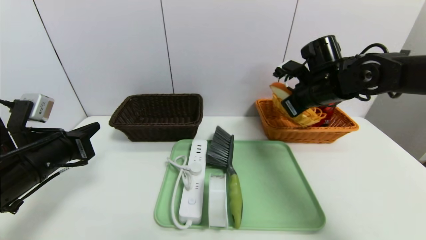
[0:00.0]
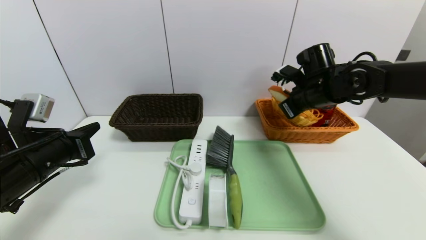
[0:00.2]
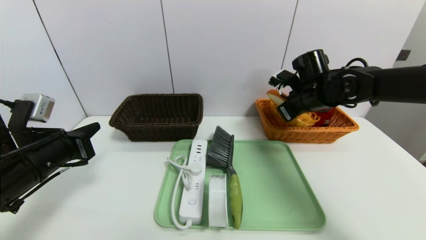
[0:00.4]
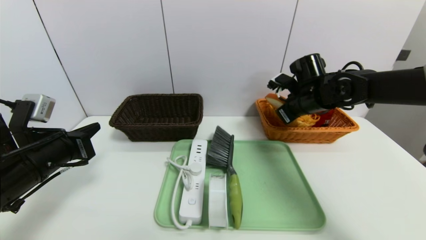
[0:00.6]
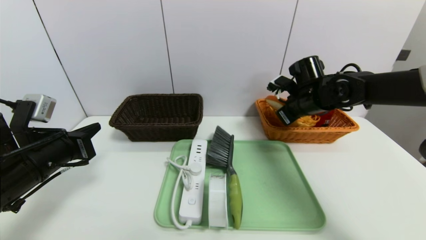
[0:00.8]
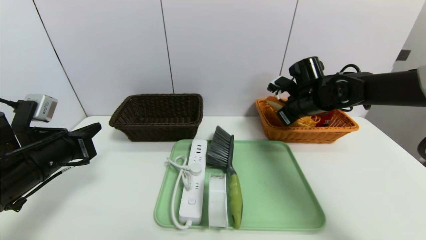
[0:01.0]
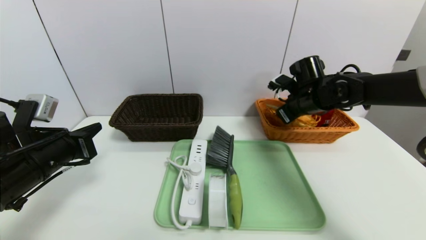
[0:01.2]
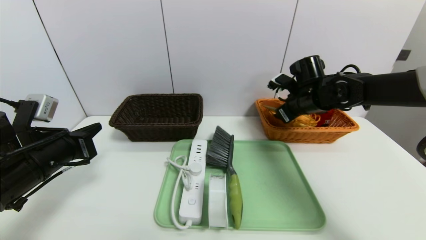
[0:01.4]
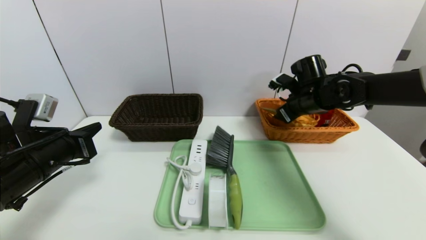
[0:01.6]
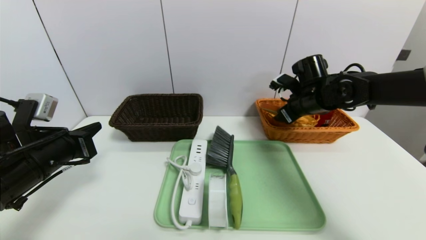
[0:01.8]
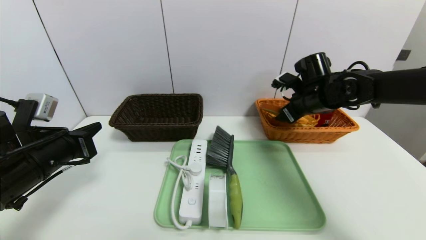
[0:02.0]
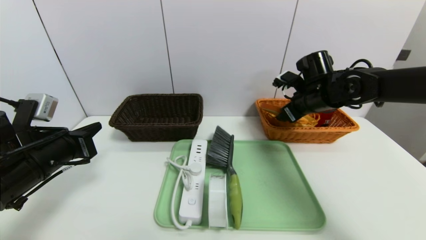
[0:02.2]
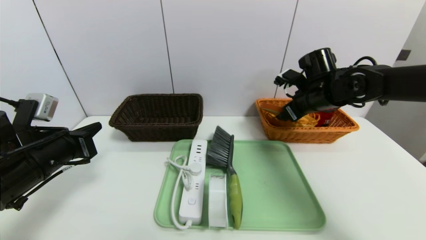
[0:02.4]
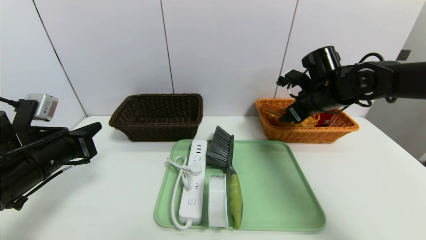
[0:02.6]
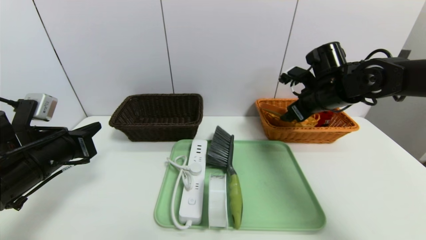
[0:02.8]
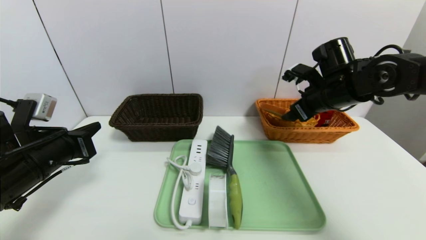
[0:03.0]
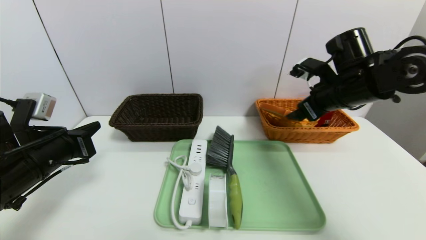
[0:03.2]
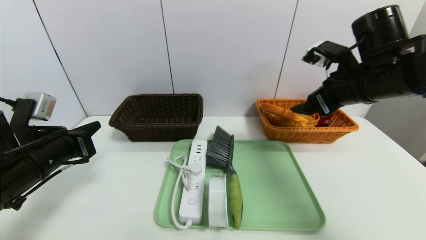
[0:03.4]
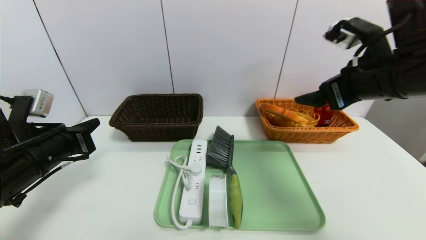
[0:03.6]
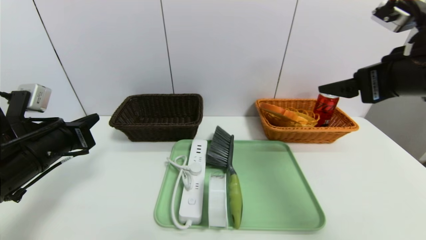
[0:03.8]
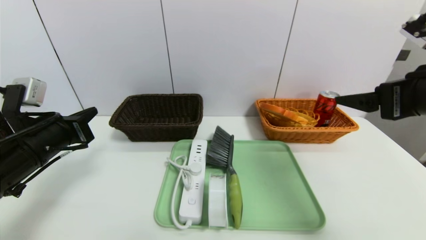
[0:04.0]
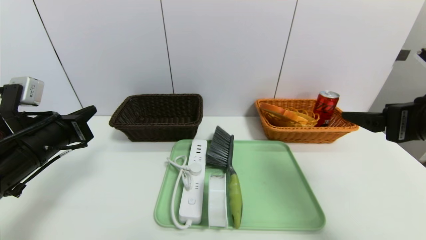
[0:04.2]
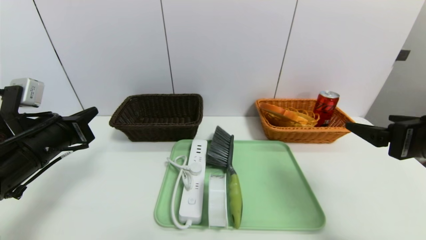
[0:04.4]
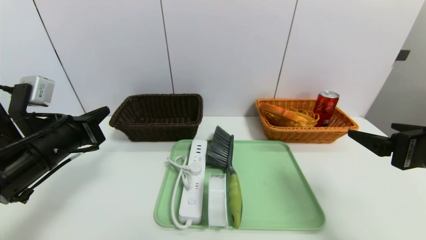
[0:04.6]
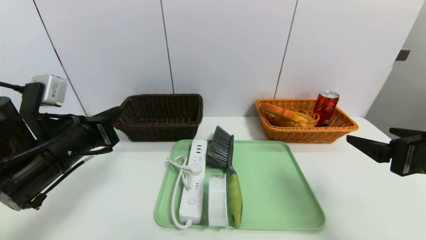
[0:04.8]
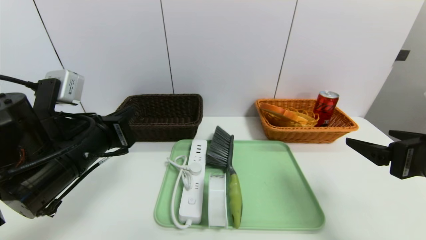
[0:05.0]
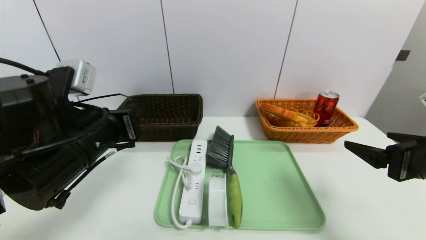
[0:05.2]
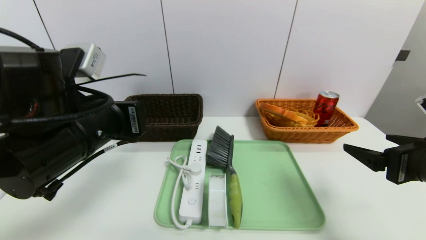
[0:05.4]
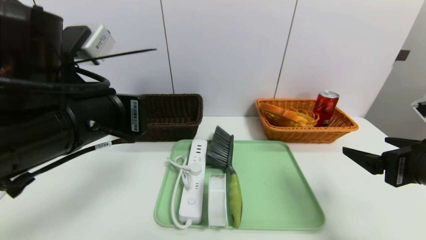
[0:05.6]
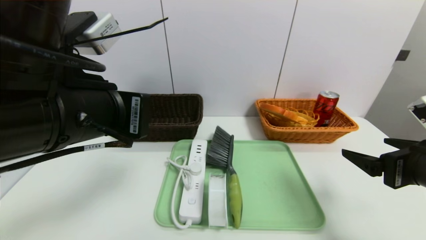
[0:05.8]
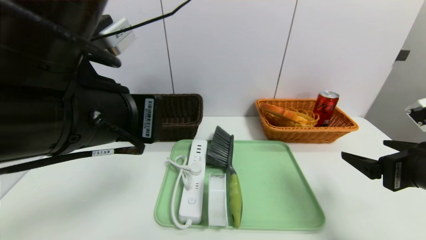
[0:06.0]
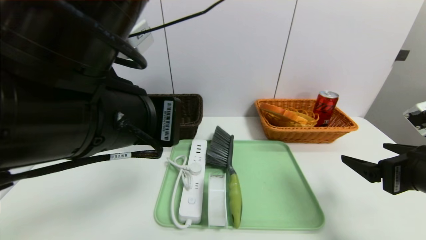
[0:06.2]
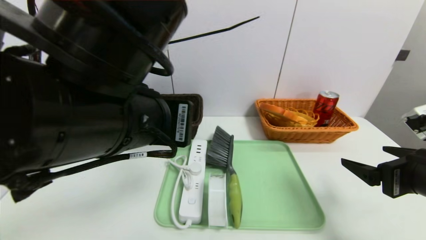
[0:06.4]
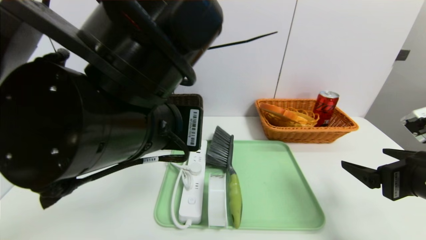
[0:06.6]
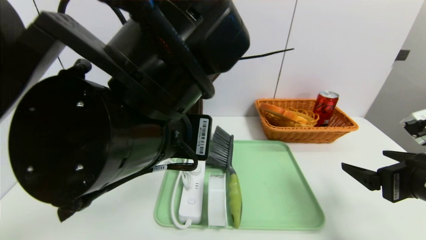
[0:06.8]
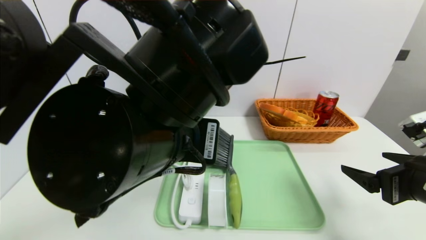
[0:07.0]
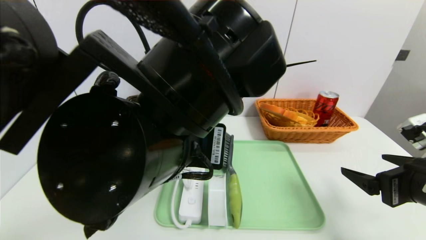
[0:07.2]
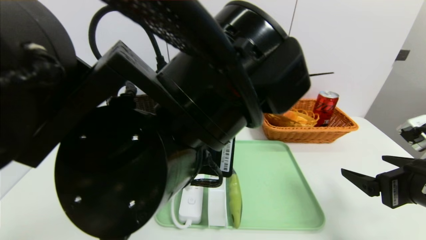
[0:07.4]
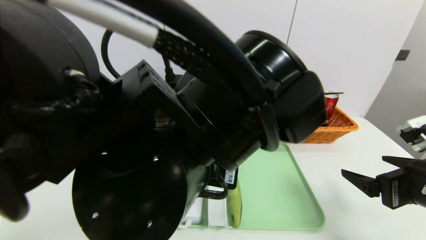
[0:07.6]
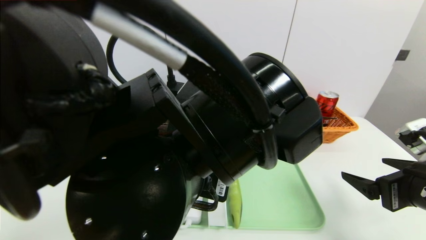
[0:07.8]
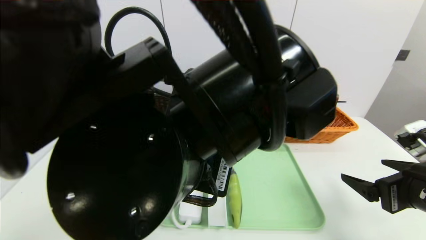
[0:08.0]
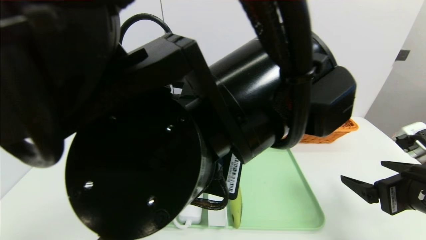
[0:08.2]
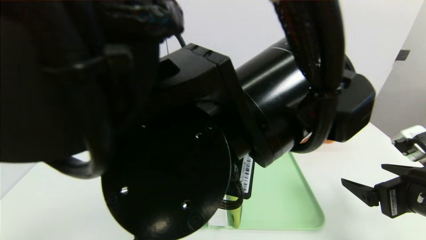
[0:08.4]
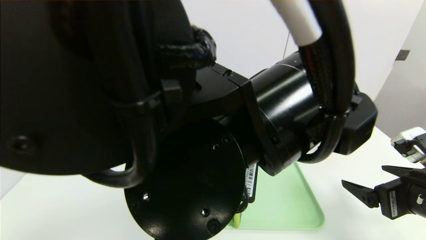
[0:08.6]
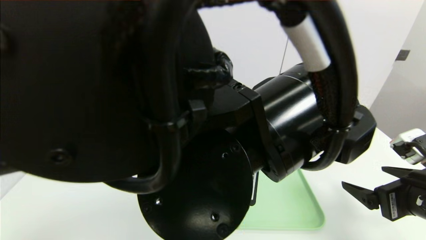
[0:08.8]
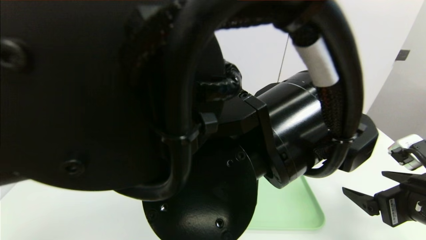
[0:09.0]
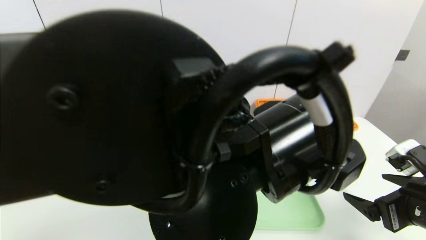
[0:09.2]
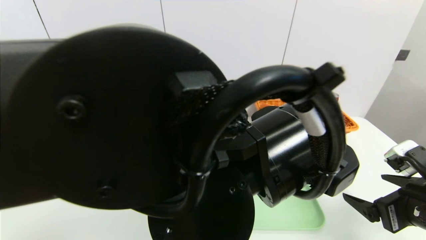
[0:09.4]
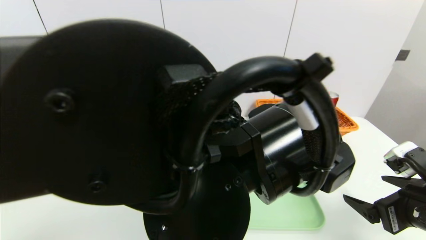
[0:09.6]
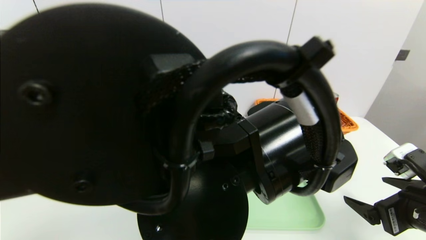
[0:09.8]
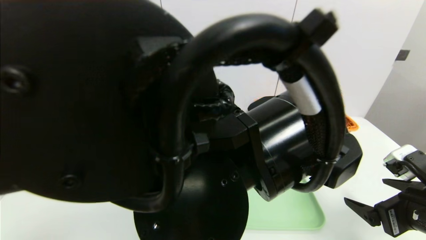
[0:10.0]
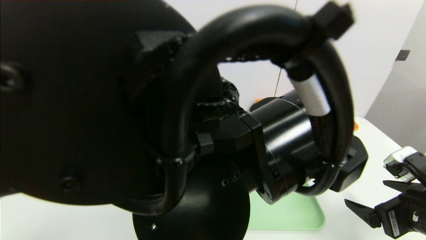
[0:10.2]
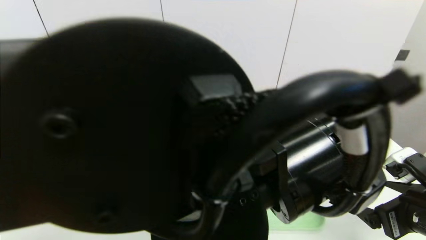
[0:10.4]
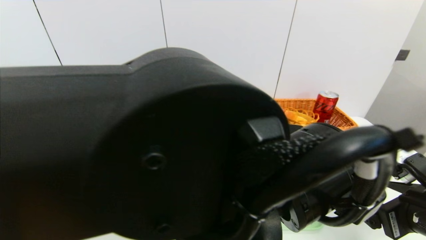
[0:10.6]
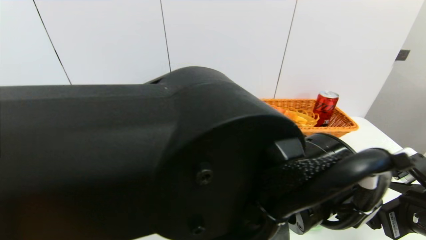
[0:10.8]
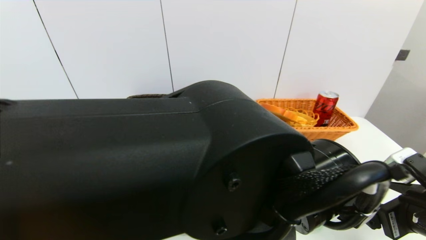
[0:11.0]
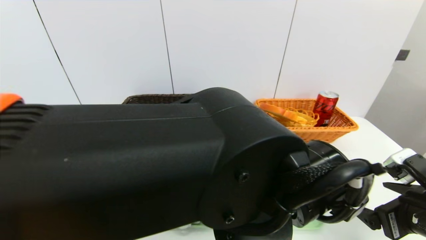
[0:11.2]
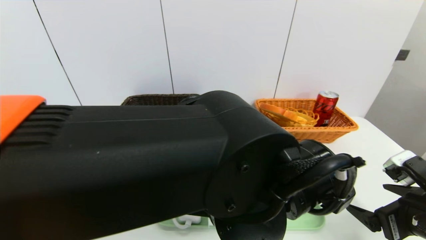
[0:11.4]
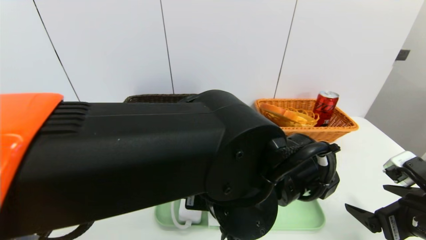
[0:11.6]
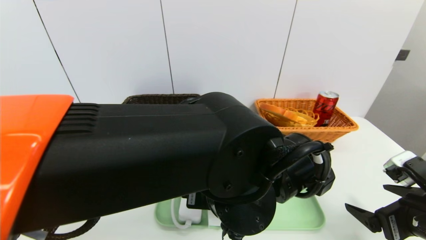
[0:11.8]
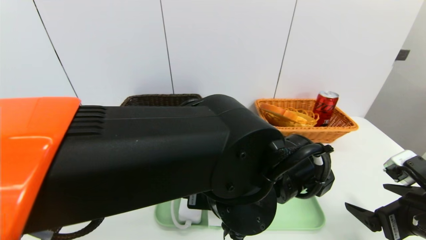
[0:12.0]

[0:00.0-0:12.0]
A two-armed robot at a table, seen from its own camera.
Task of the whole recording: place the food in the right basket with the right gripper, and place the non food items in the left basket with the left gripper.
Step, 0:00.0 to 0:03.6: Grasp the bread slice and put it in the right basket.
0:00.0 to 0:01.6: The right gripper shifts by approximately 5 cm, and opens its fingers.
0:01.6 to 0:03.0: The right gripper goes roughly 5 cm backward.
0:03.0 to 0:04.4: The right gripper shifts roughly 20 cm backward.
0:04.4 to 0:06.0: The left gripper moves to the right, upward and backward, some 20 cm.
0:06.0 to 0:07.6: The left gripper travels to the right by approximately 10 cm.
0:09.0 to 0:10.4: The left gripper opens up.
0:10.4 to 0:12.0: The left gripper travels downward by approximately 5 cm.

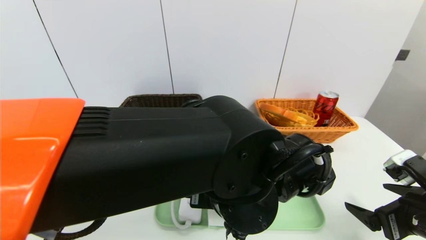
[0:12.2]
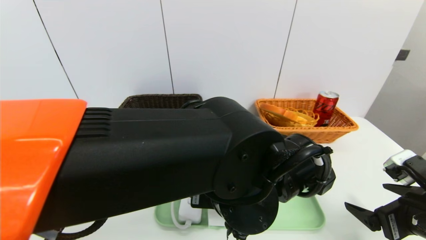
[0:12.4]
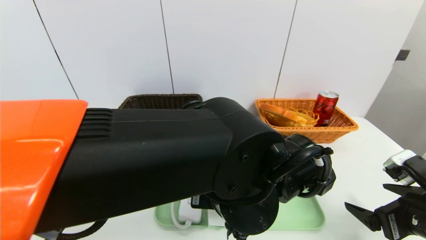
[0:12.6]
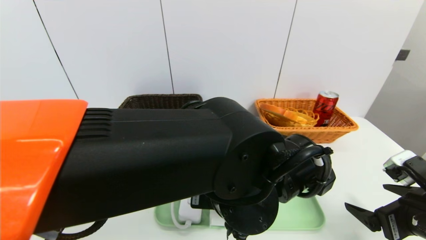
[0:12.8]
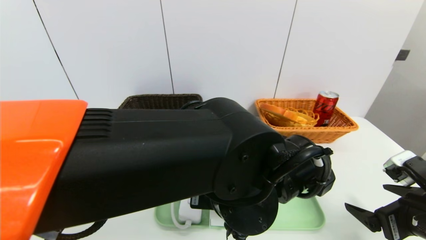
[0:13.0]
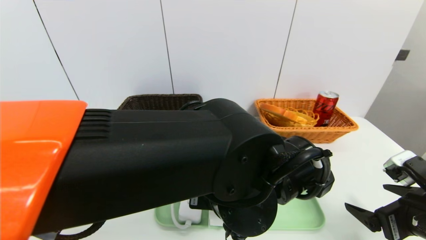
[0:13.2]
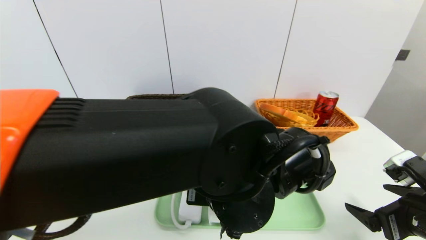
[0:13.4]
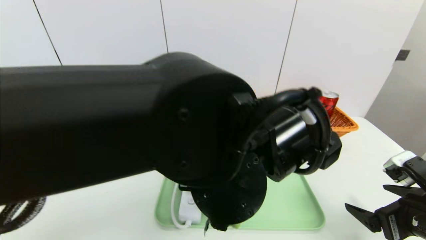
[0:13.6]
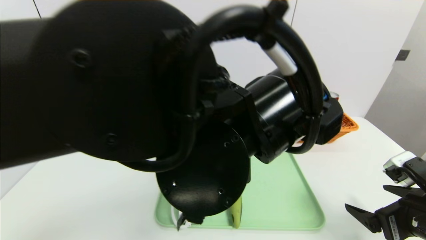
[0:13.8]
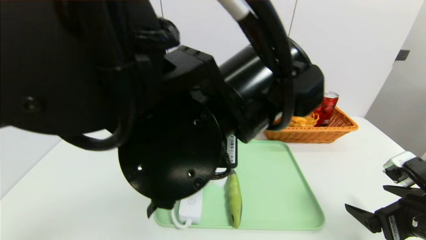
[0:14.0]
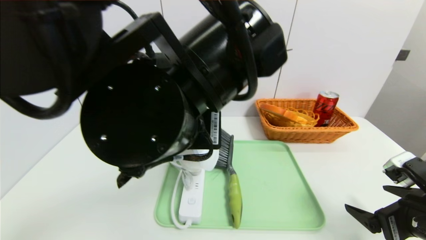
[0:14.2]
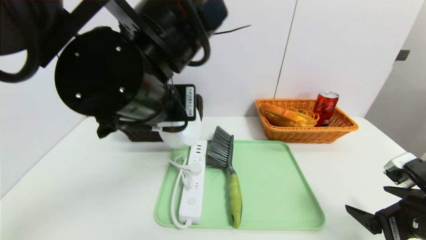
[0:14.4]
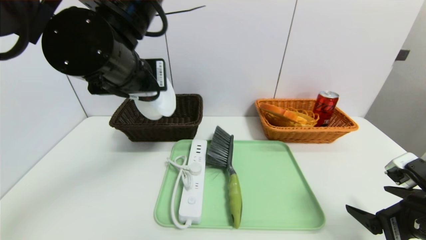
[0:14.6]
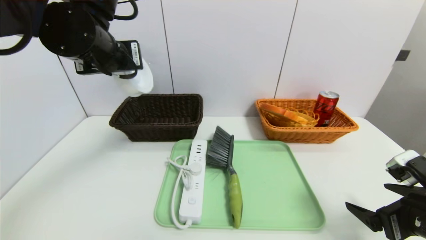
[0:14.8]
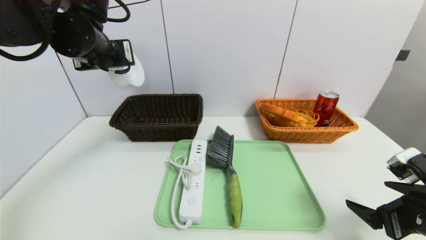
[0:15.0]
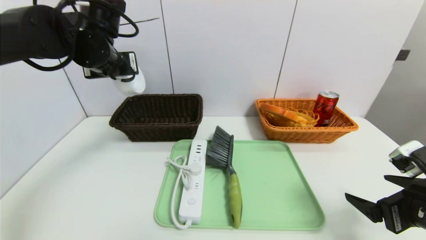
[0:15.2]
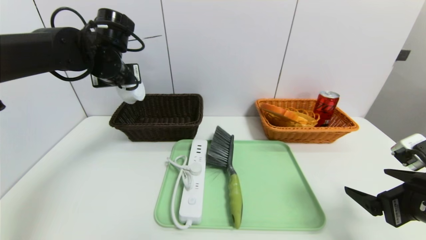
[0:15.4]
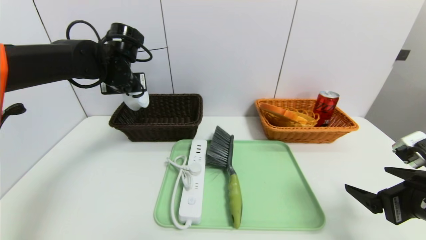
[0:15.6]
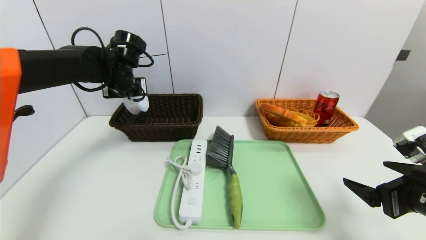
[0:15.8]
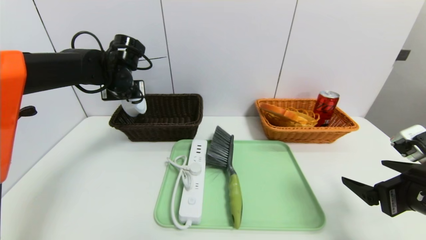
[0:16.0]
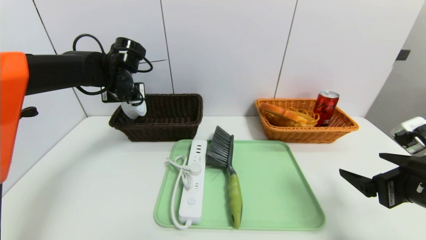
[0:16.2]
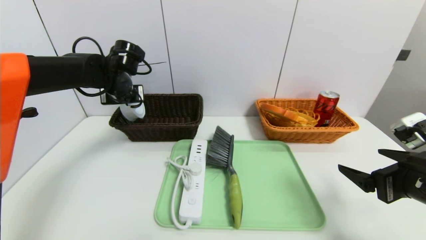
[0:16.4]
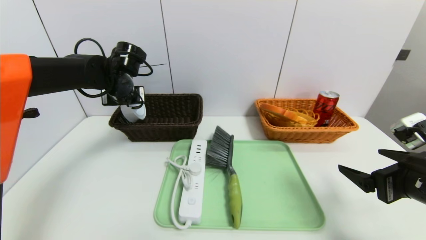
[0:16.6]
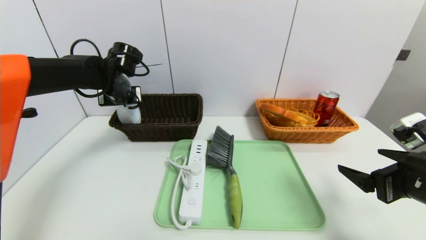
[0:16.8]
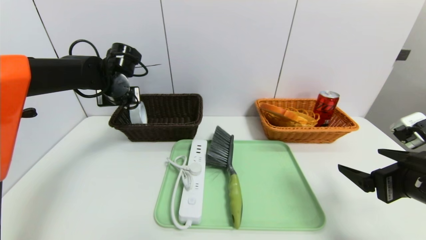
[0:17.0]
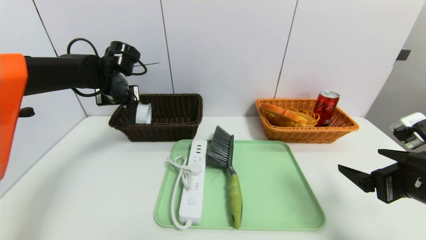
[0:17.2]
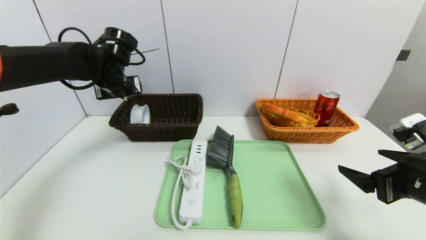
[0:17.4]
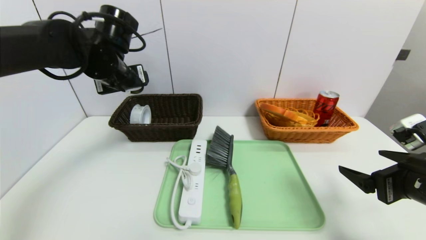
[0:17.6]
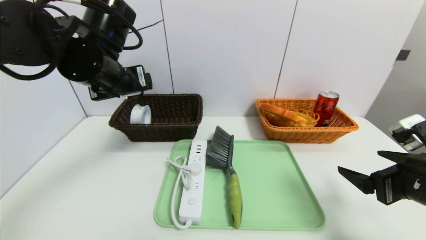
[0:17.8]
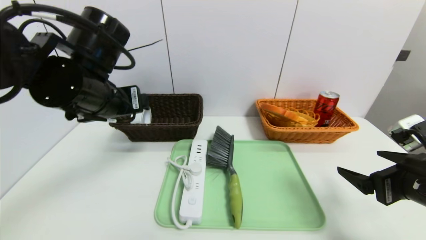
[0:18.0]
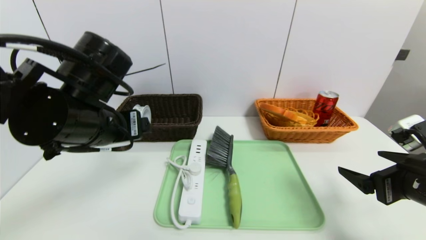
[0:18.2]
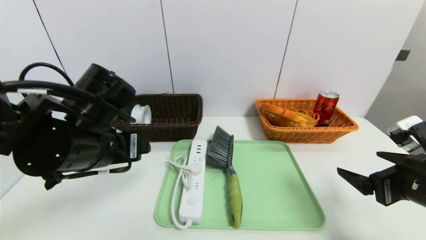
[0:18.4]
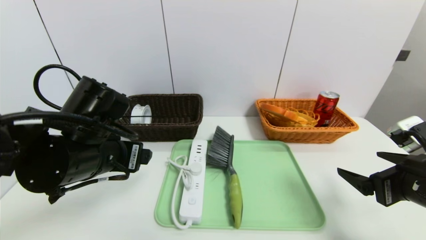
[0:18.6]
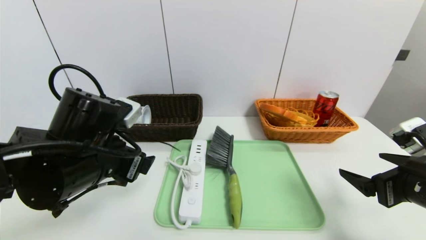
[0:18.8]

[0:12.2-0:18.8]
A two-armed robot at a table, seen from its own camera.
Task of the whole recording: place the food in the right basket with the right gripper, and place the non food items in the left basket with the left gripper.
Step, 0:12.2 to 0:17.2: Grasp the tape and put it in the left basket.
0:12.2 to 0:13.8: The left gripper shifts some 5 cm upward, and closes.
0:13.8 to 0:15.4: The left gripper moves forward and to the left, about 30 cm.
0:15.4 to 0:17.2: The left gripper travels downward by about 5 cm, and opens.
0:17.2 to 0:18.8: The left gripper moves backward, some 20 cm.
